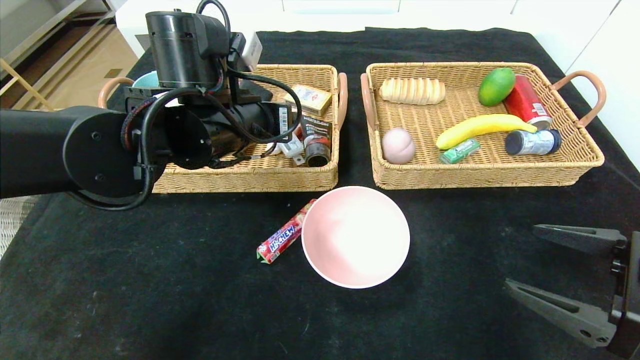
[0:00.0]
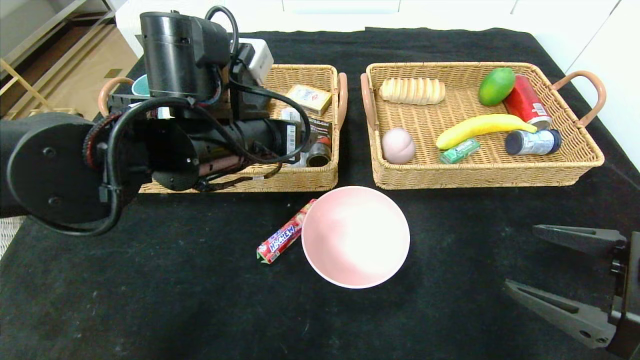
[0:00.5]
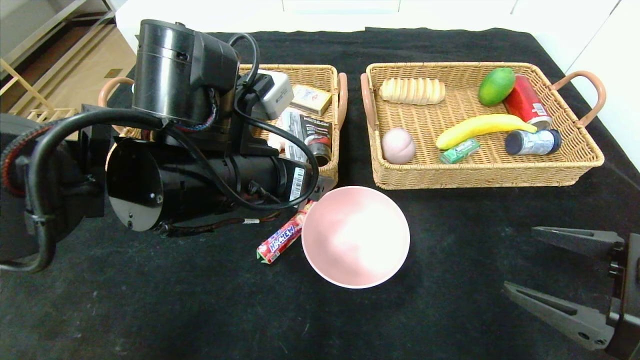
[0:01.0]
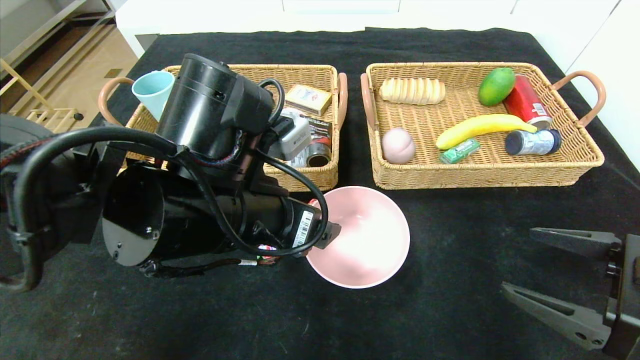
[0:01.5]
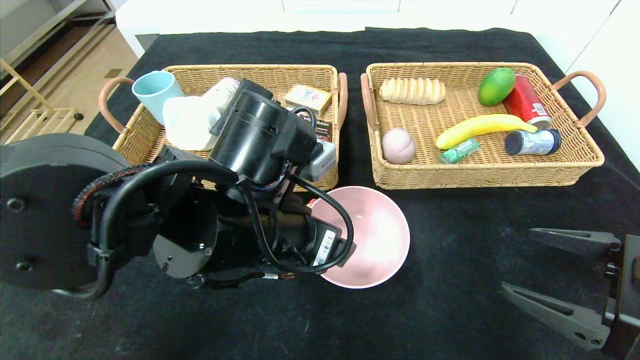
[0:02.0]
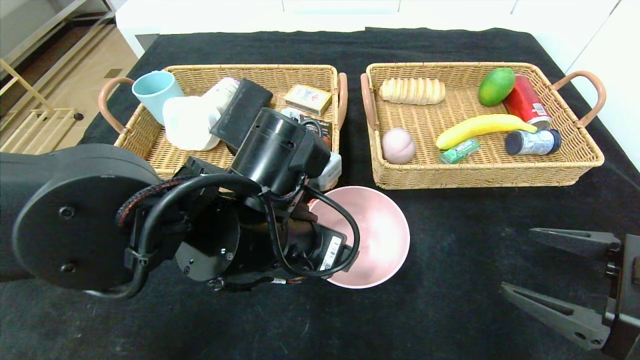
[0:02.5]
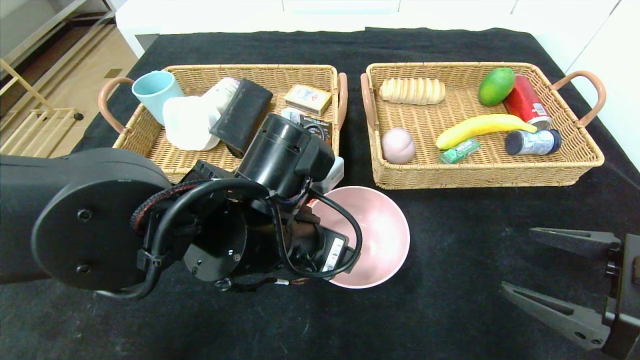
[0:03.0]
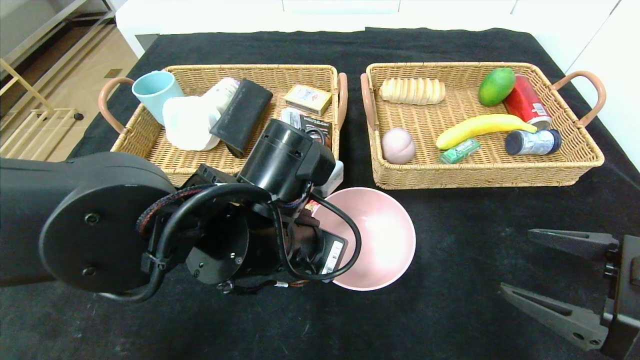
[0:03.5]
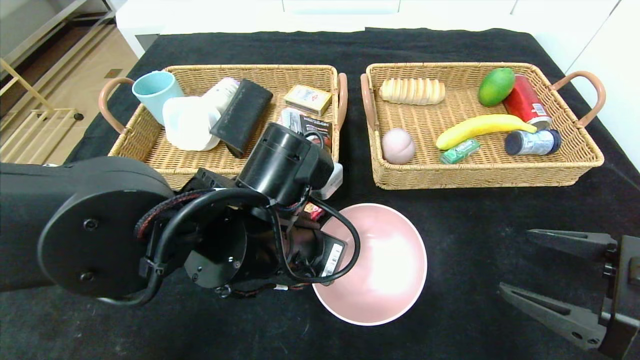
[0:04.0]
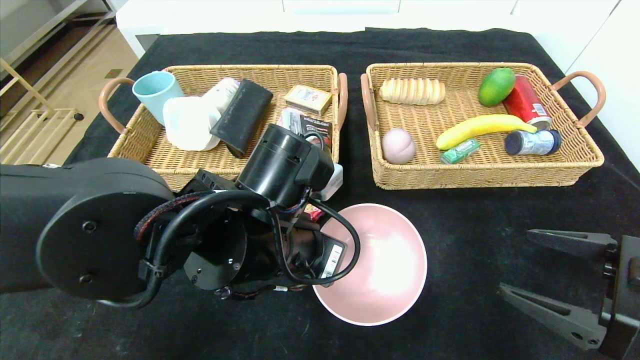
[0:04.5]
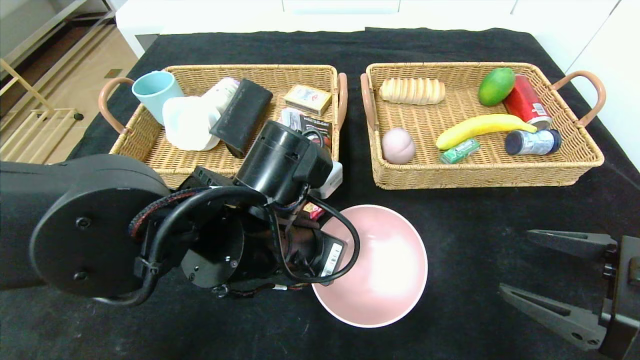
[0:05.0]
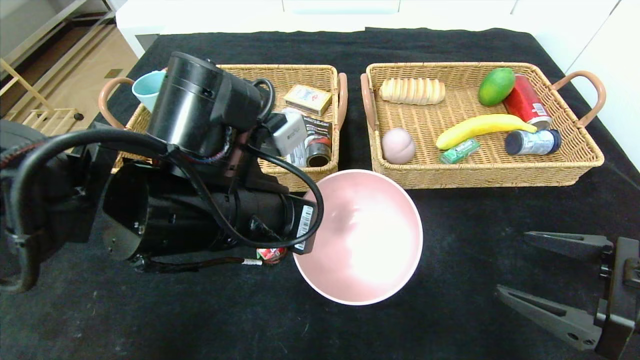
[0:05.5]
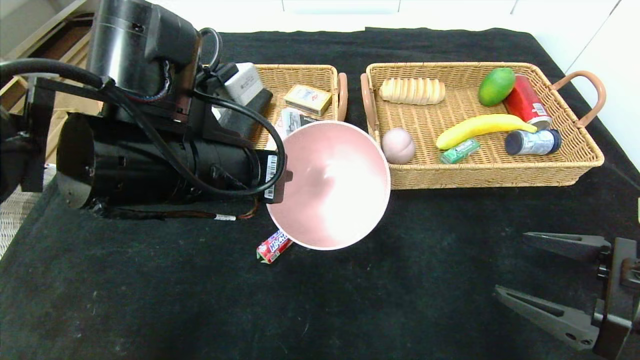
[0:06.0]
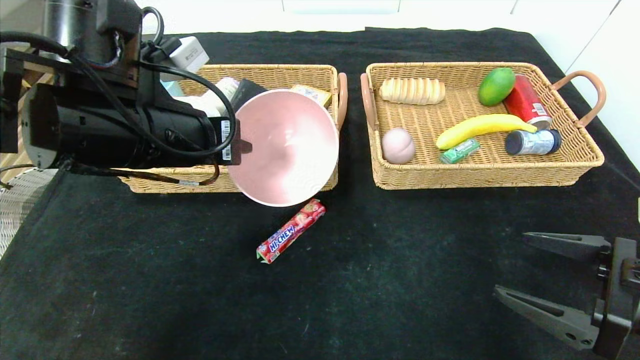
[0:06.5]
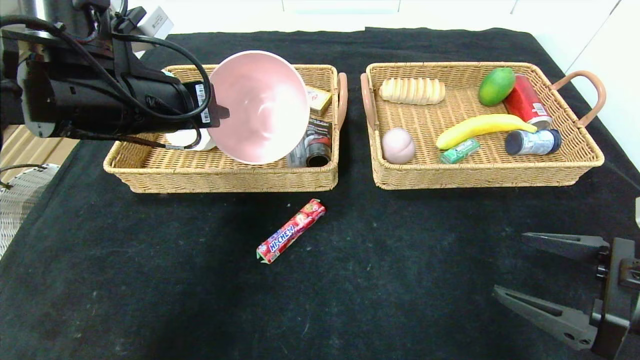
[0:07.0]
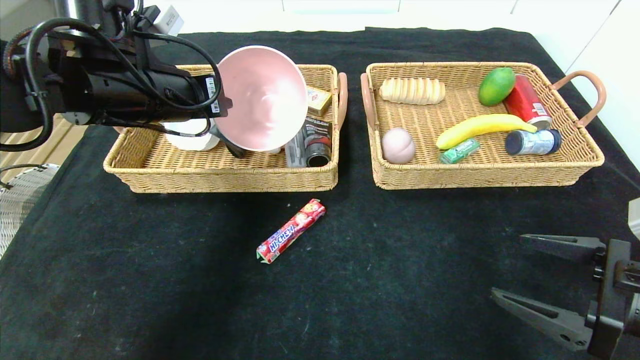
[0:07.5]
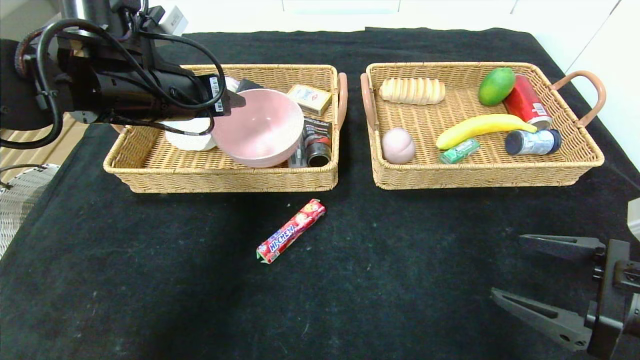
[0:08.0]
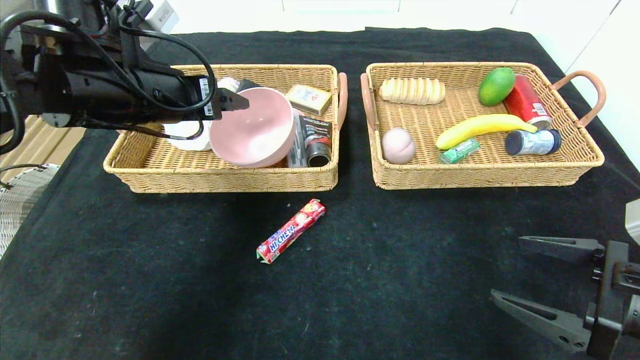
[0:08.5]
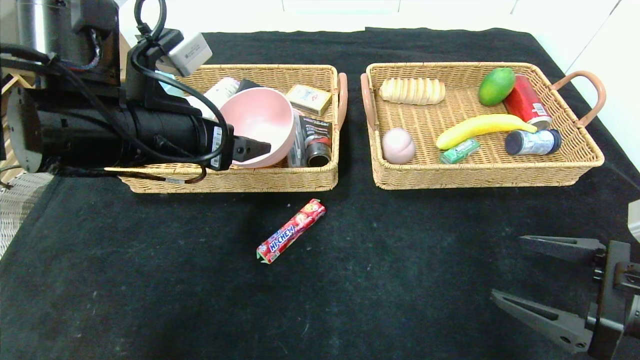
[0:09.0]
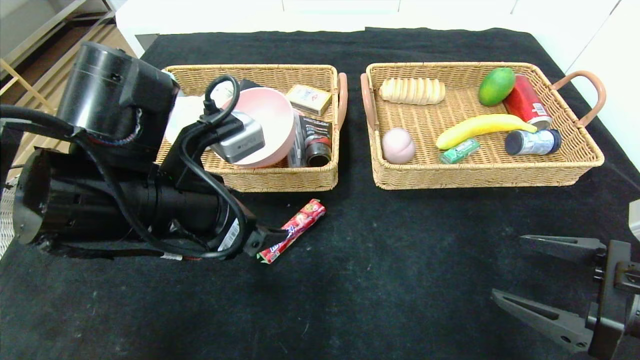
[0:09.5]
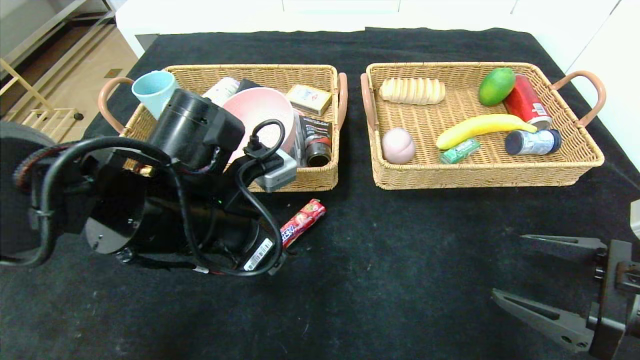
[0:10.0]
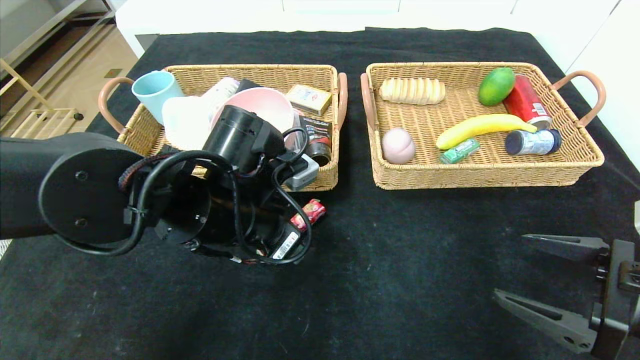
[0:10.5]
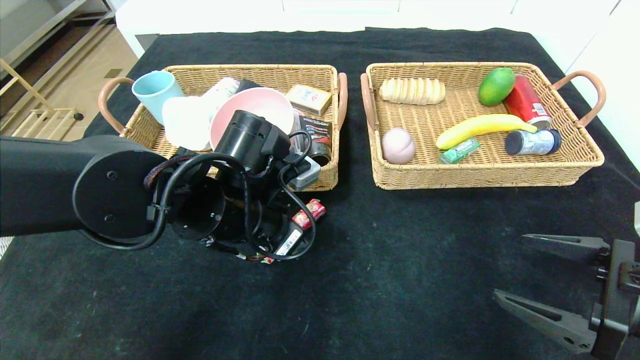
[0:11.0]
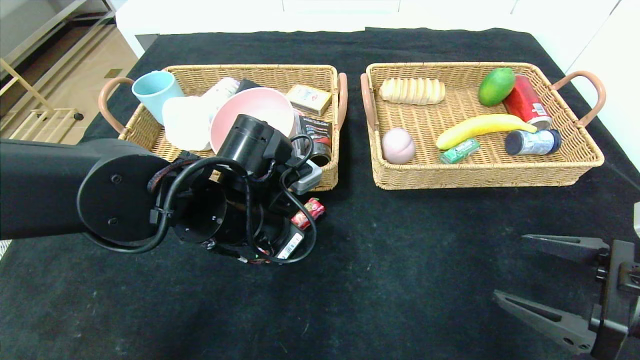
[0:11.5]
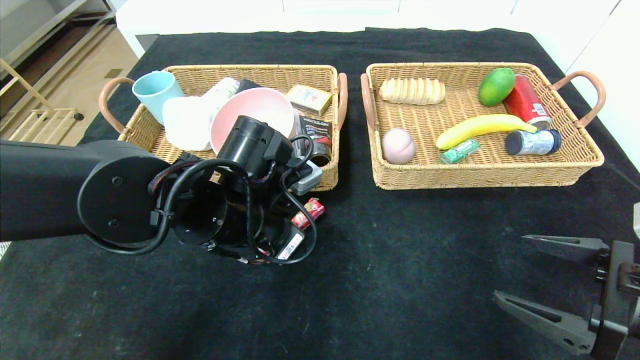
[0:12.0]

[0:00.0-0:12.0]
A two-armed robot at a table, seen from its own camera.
Step, 0:00.5 to 0:08.5: Grasp the pink bowl and put it in the left basket.
0:00.0 to 0:02.0: The left gripper heads backward, downward and to the right, covering some 15 cm.
0:02.0 to 0:04.0: The left gripper closes up.
0:04.0 to 0:06.0: The left gripper goes about 10 cm upward and to the left.
0:06.0 to 0:08.0: The left gripper heads forward and to the left, covering about 10 cm, and opens its fingers.
0:08.0 to 0:10.0: The left gripper is displaced backward, downward and to the right by about 15 cm, and opens up.
0:10.0 to 0:12.0: The left gripper changes place by some 5 cm, and closes its fingers.

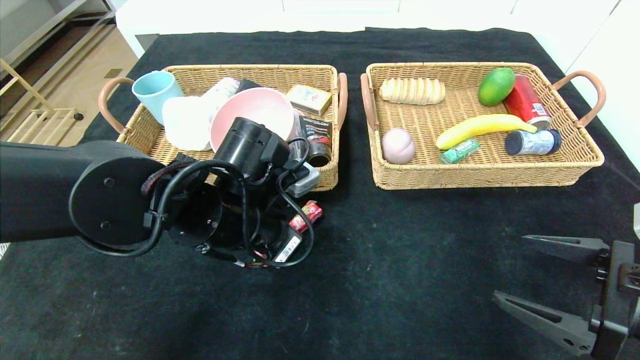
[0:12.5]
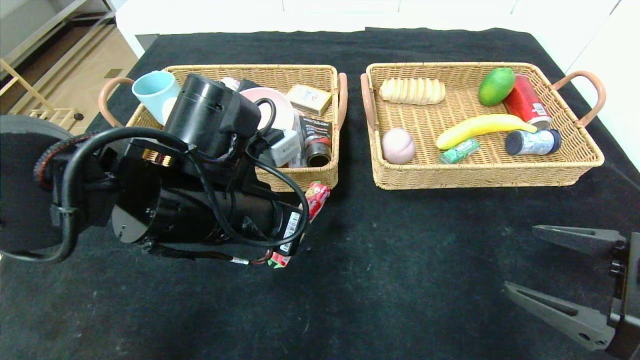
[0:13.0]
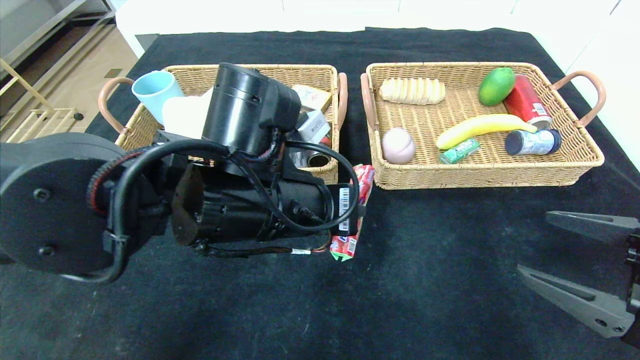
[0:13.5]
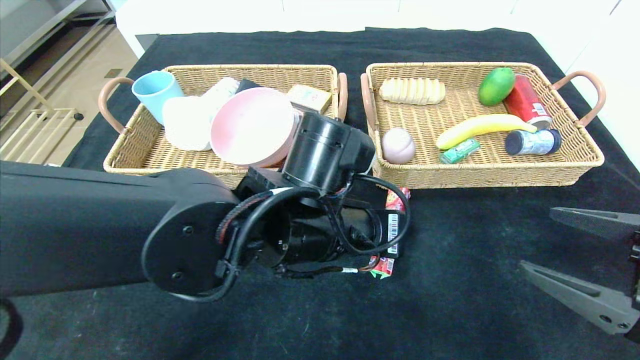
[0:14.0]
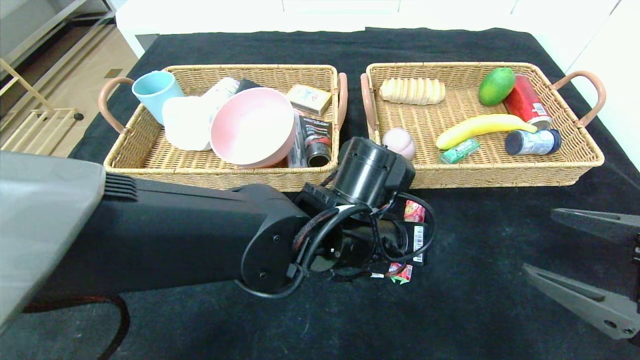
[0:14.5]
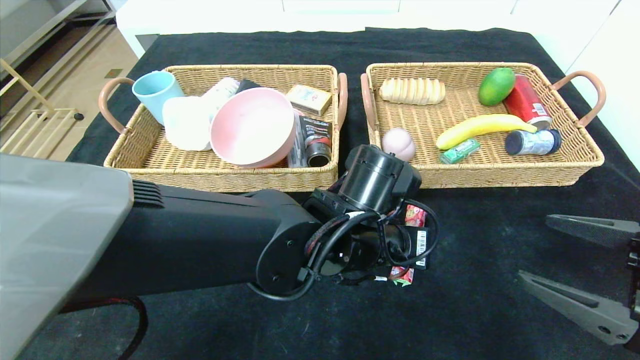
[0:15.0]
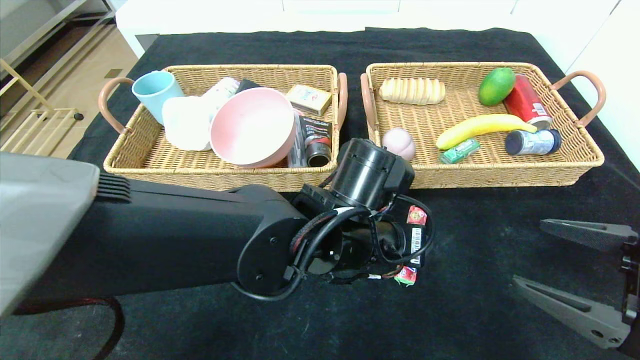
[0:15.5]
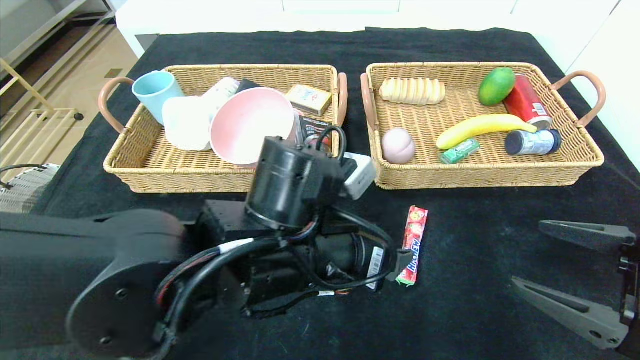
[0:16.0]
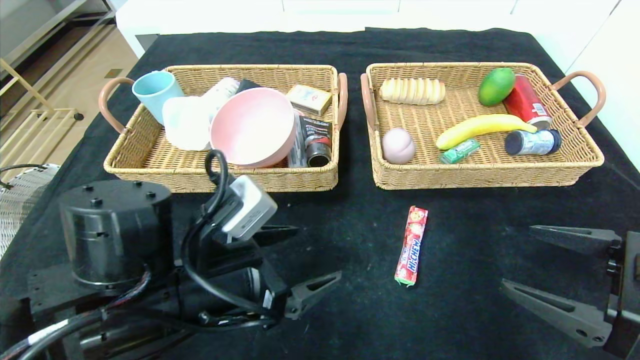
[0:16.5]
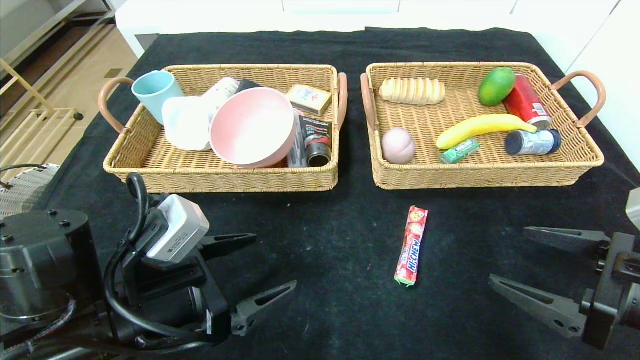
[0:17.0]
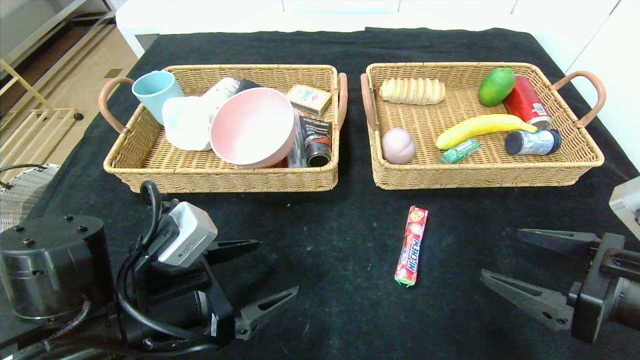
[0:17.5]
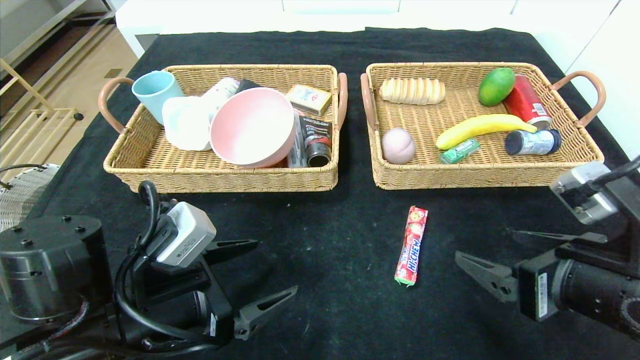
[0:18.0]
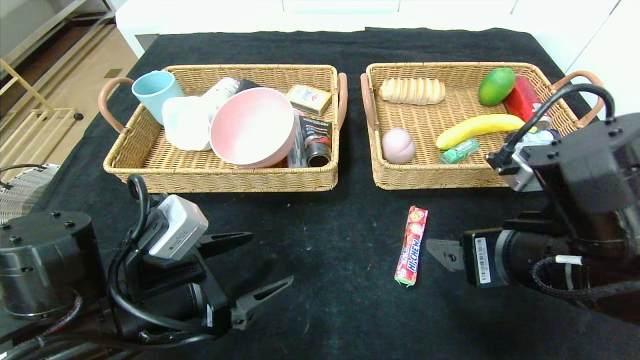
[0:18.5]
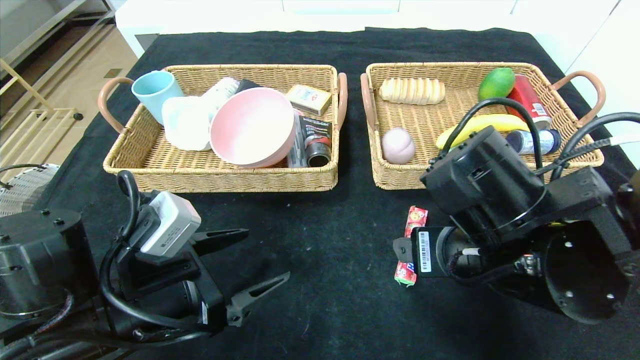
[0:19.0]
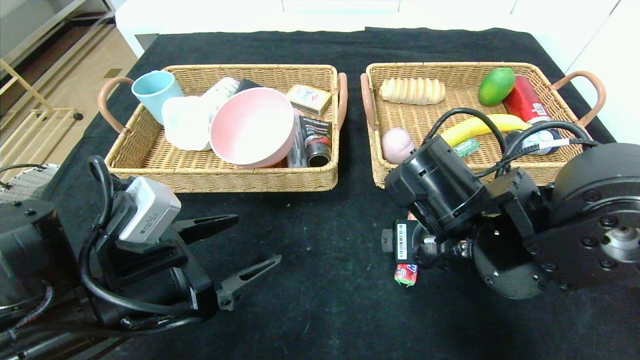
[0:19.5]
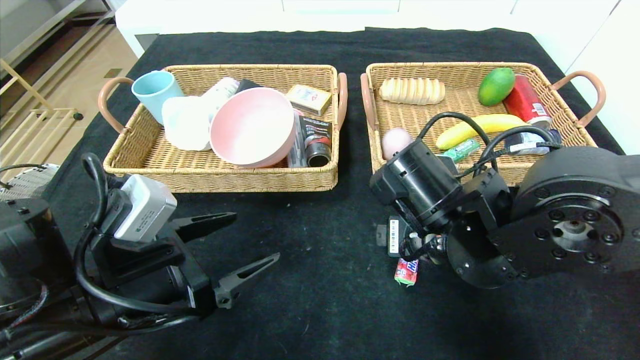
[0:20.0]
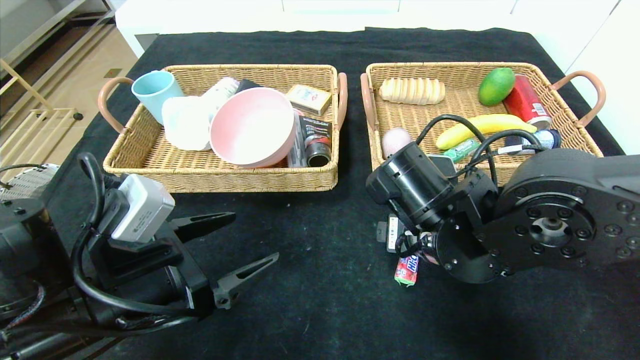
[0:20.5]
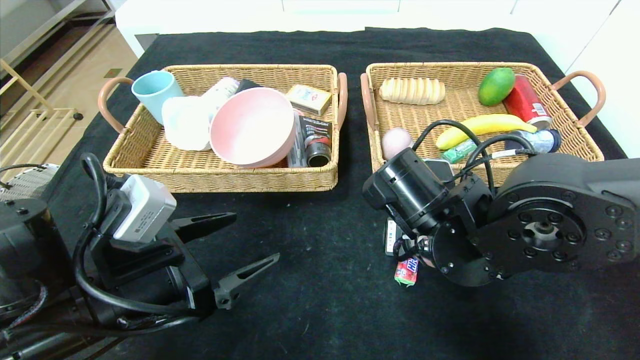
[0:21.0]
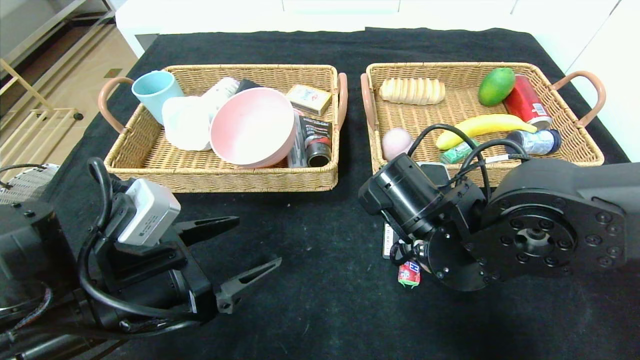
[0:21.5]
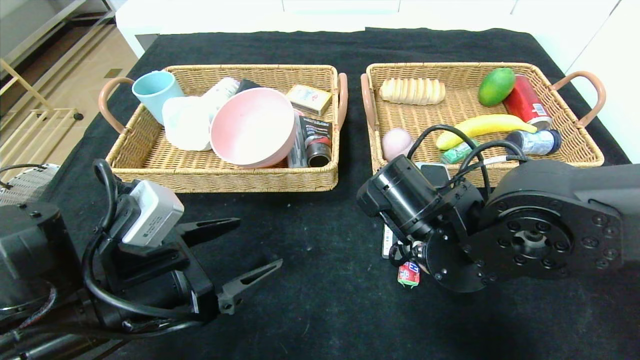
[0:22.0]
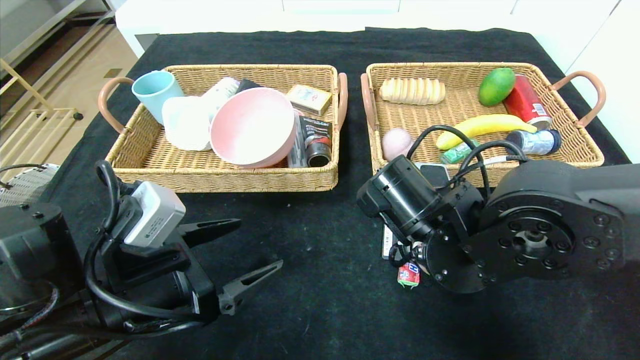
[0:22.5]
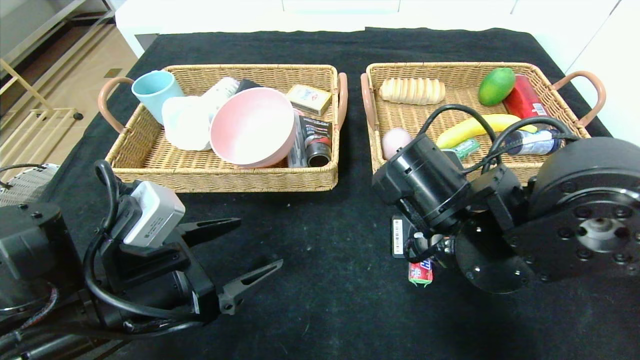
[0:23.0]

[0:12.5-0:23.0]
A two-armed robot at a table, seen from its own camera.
Step, 0:12.5 to 0:15.5: Place the fruit fudge in the center of the table.
0:12.5 to 0:14.5: The left gripper moves to the right, some 15 cm.
0:14.5 to 0:16.5: The left gripper travels to the left and backward by about 20 cm, and opens its fingers.
0:16.5 to 0:19.0: The left gripper moves to the left, about 5 cm; the right gripper goes approximately 15 cm to the left.
0:19.0 to 0:21.0: The right gripper moves forward, some 5 cm.
0:21.0 to 0:23.0: The right gripper closes.
